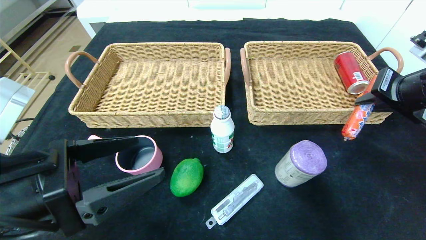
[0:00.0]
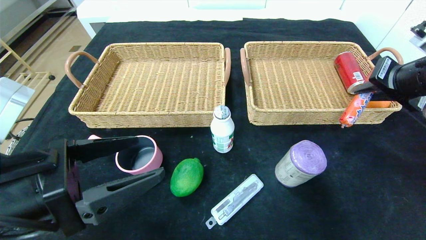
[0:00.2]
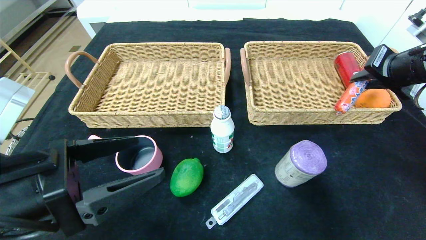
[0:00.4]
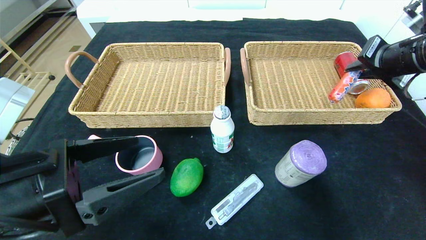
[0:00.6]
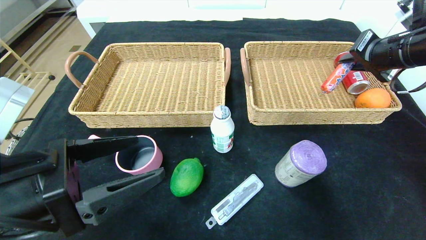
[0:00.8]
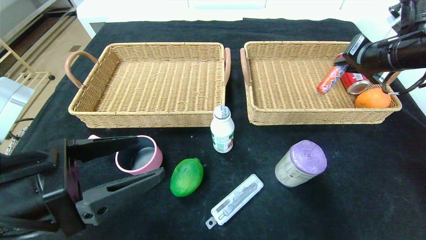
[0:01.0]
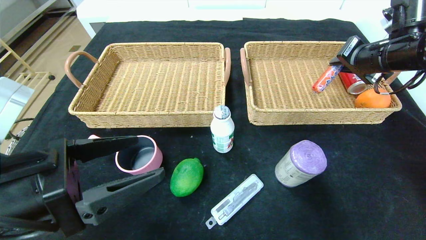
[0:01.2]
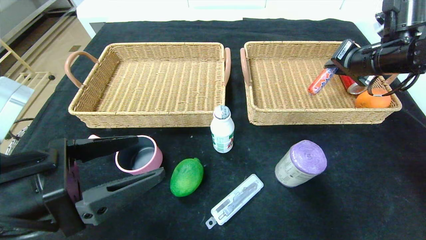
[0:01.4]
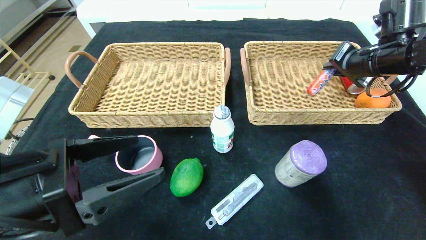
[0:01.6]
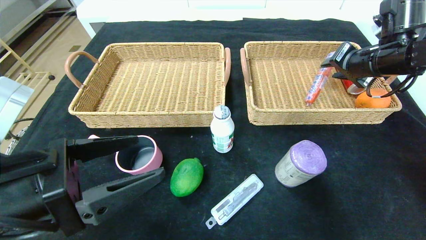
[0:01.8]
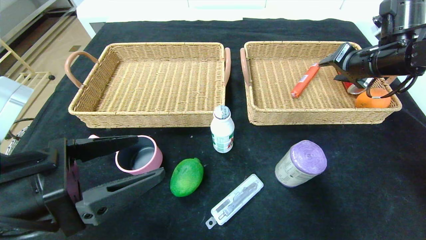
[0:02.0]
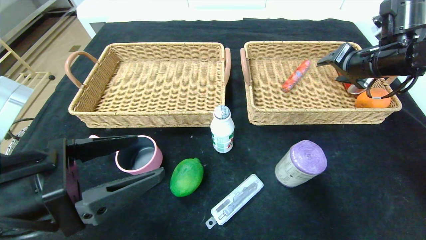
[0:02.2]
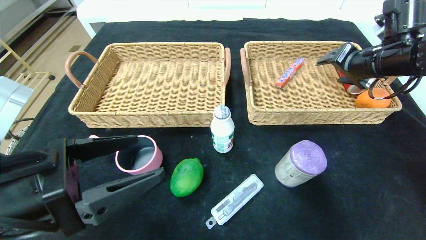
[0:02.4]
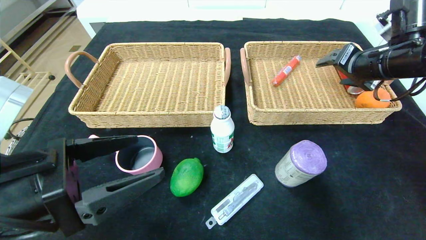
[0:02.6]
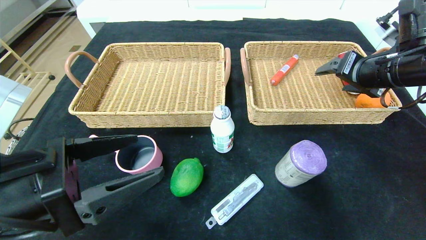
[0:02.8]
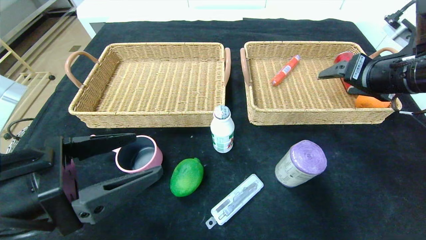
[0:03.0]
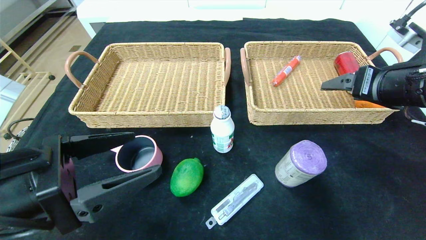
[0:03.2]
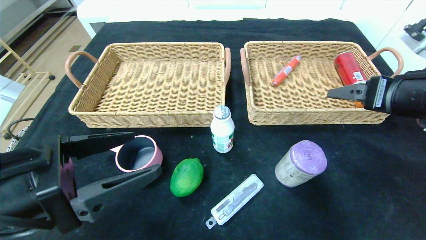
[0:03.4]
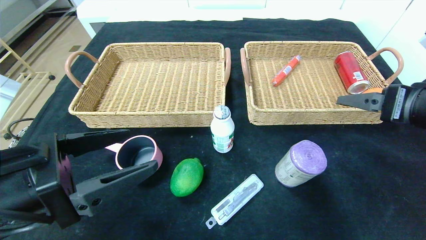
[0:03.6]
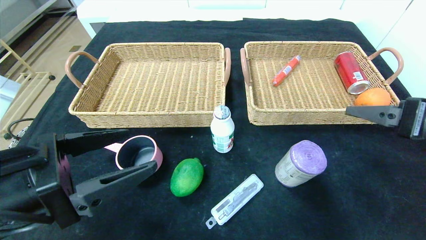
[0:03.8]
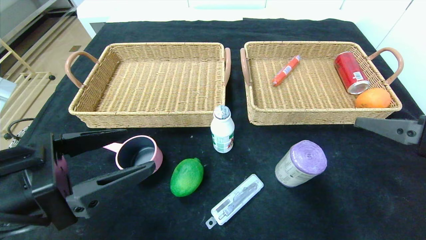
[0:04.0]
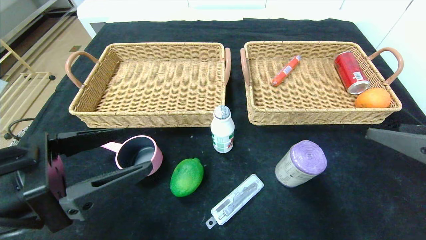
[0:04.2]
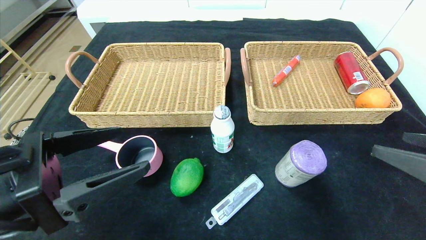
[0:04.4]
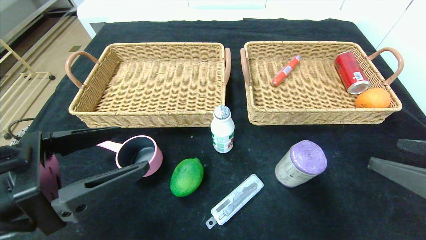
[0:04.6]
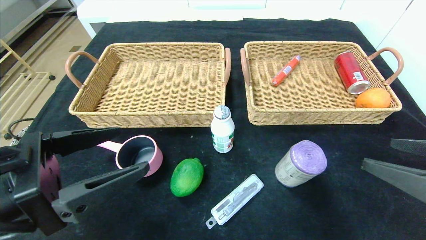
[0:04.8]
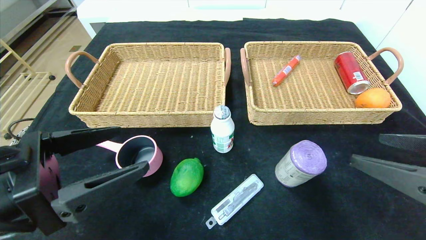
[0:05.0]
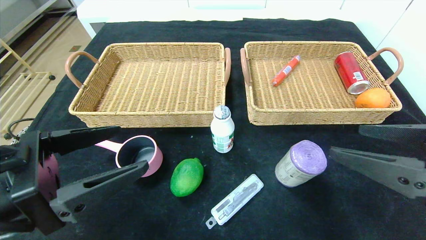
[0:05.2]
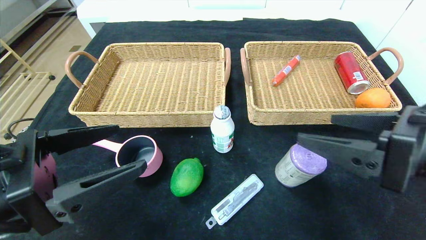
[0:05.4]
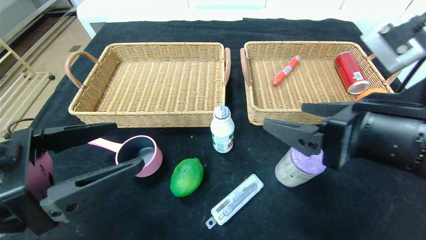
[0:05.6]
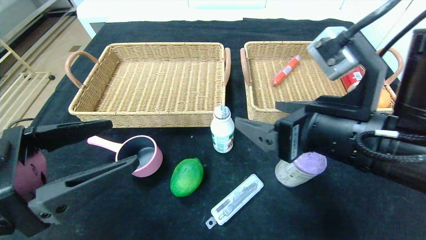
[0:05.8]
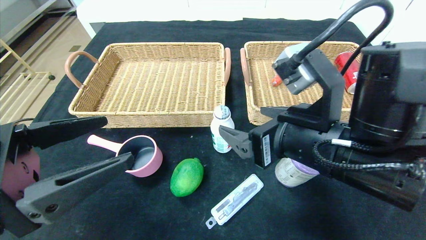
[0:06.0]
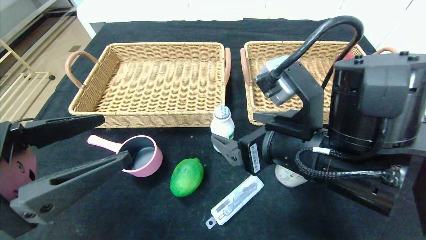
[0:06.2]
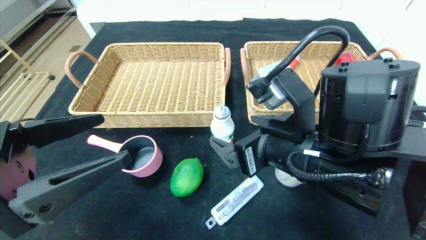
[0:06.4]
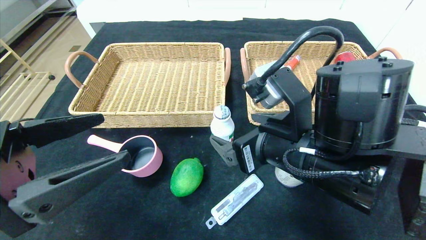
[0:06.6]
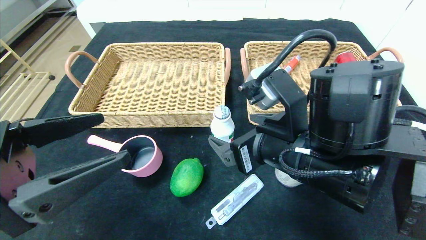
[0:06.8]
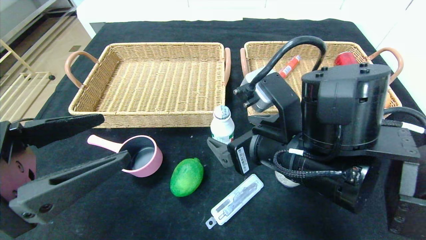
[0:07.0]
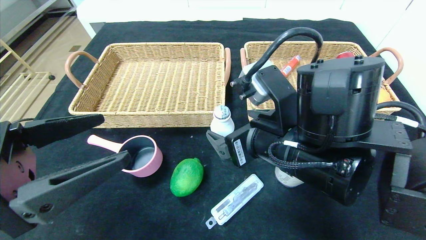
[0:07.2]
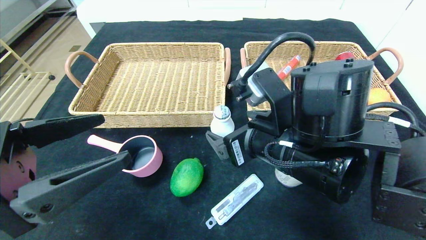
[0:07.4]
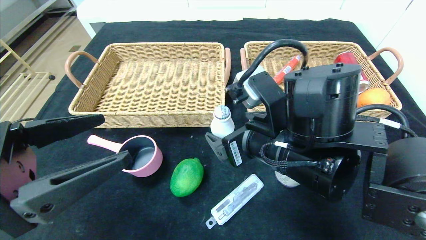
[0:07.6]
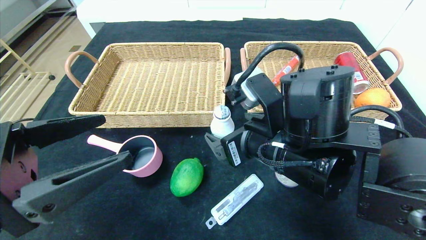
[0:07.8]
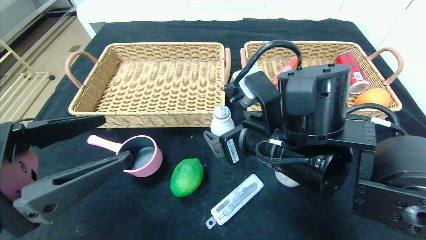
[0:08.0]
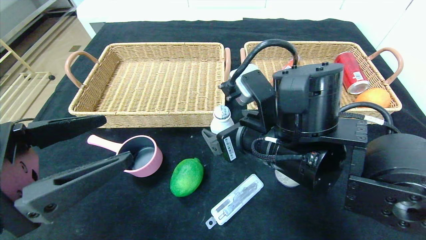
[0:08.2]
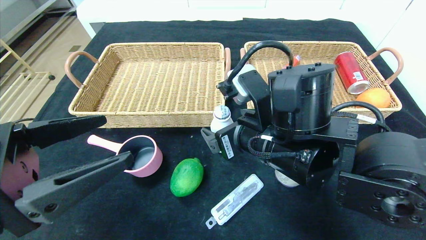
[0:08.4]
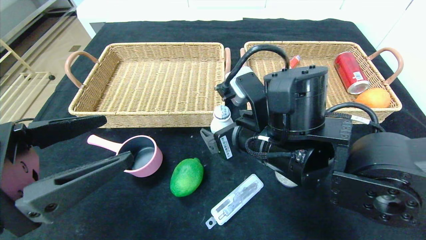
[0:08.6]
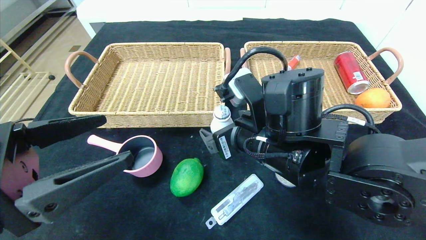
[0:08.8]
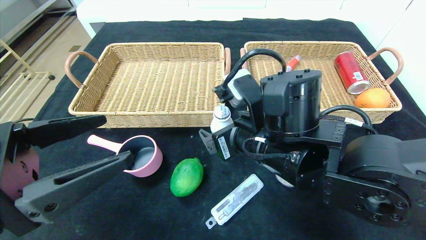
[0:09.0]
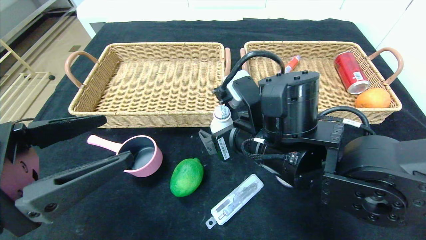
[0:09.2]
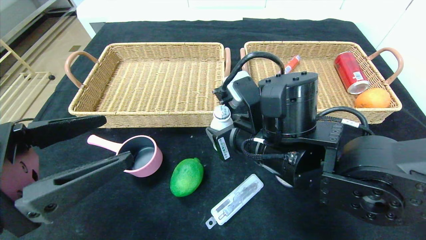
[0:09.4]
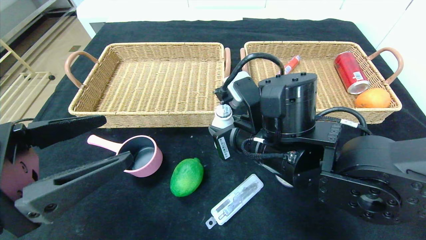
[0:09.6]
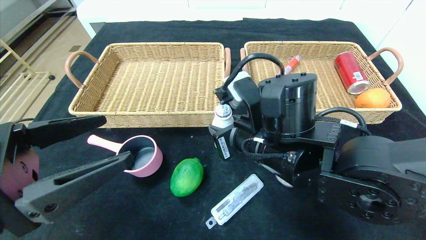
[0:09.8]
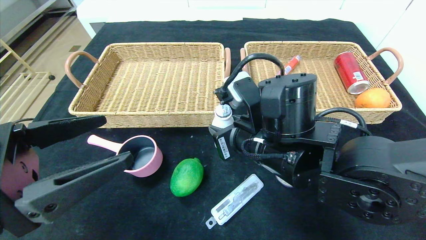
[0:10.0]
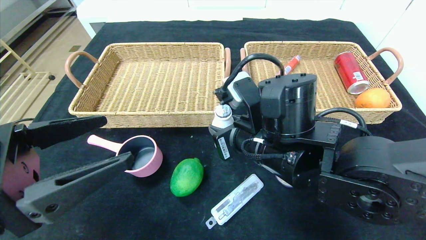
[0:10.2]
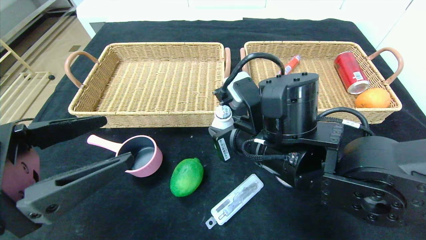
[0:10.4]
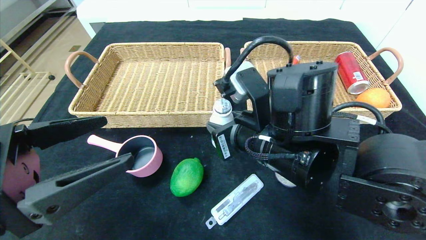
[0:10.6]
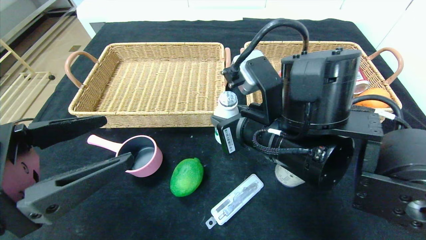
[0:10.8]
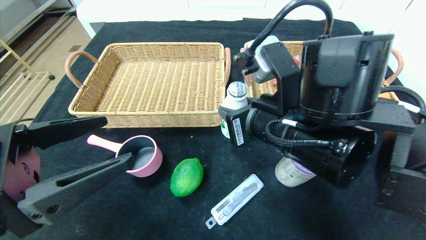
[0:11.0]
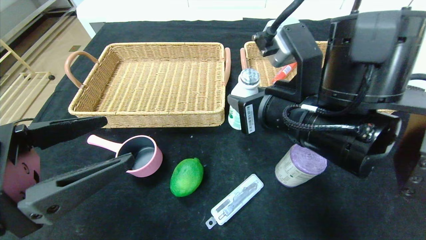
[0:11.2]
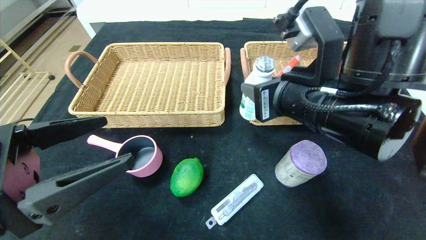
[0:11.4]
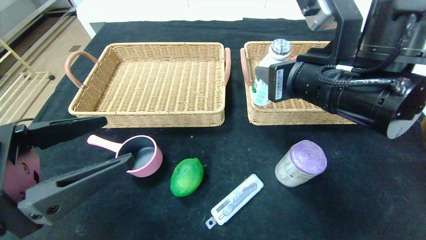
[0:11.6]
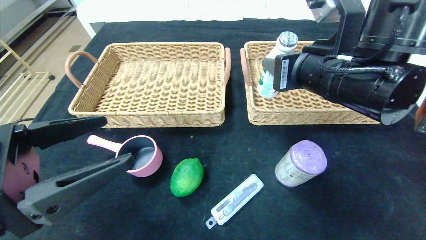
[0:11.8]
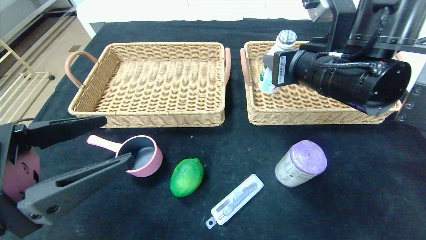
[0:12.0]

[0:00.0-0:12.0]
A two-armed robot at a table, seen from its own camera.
Step, 0:00.0 to 0:04.2: Pick up the sausage and put it in the right basket.
0:00.0 to 0:01.6: The right gripper goes some 10 cm forward.
0:01.6 to 0:03.0: The right gripper heads backward, covering roughly 10 cm, and opens.
0:03.0 to 0:04.4: The right gripper goes roughly 20 cm backward.
0:04.4 to 0:06.0: The right gripper is displaced to the left and forward by about 20 cm.
0:06.0 to 0:07.6: The right gripper changes place by approximately 5 cm.
0:07.6 to 0:09.0: The grippers move only a little.
0:09.0 to 0:10.4: The right gripper closes up.
0:10.4 to 0:12.0: The right gripper goes about 10 cm upward and to the right.

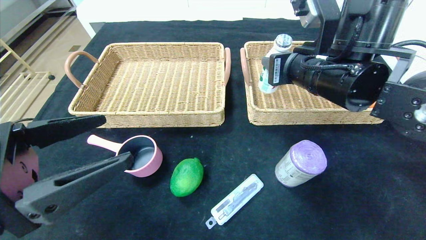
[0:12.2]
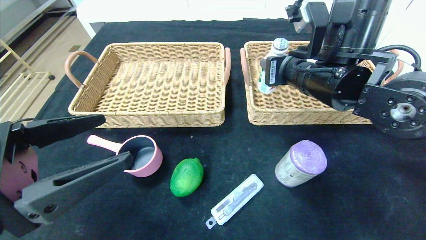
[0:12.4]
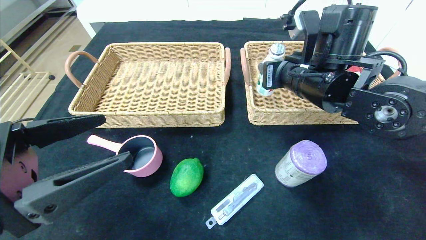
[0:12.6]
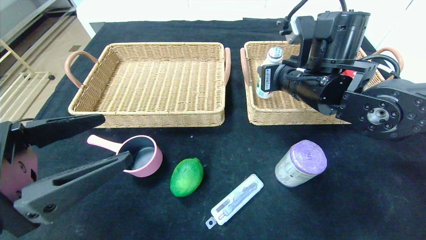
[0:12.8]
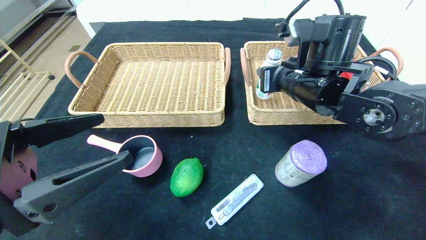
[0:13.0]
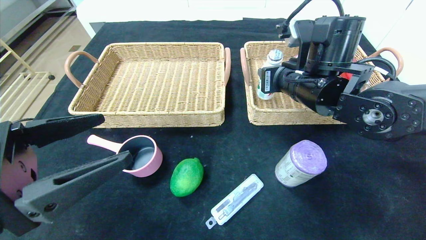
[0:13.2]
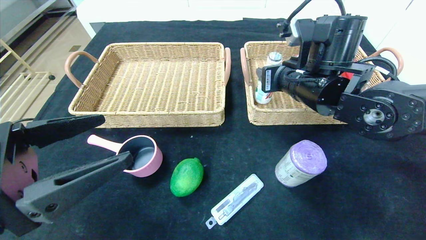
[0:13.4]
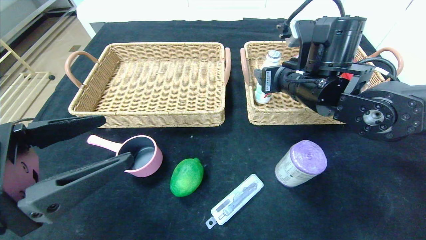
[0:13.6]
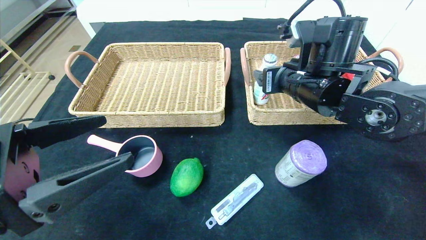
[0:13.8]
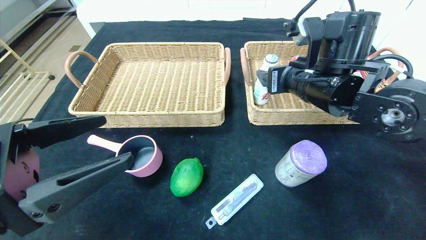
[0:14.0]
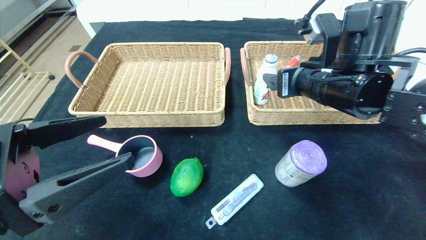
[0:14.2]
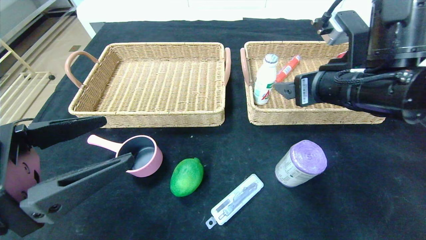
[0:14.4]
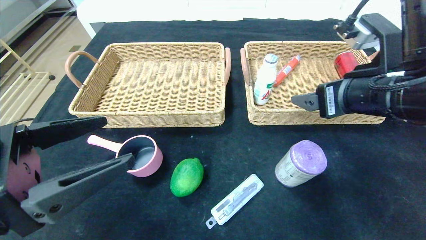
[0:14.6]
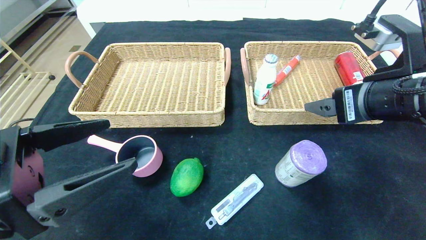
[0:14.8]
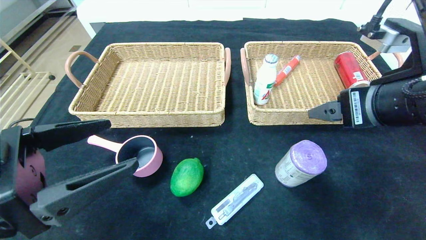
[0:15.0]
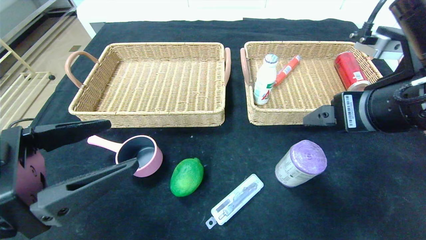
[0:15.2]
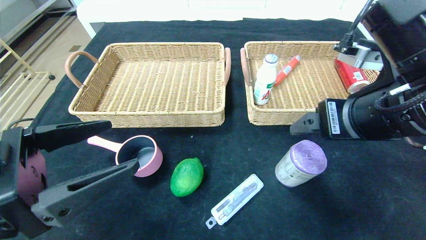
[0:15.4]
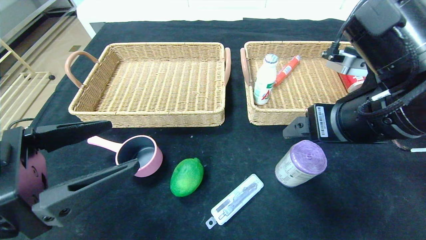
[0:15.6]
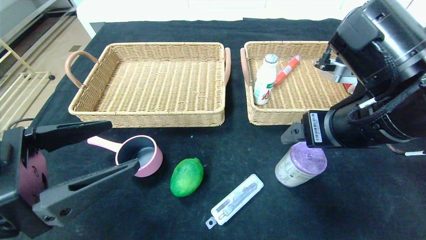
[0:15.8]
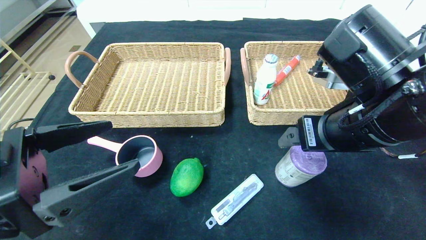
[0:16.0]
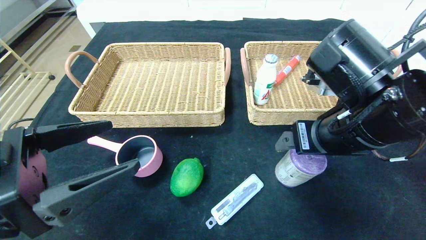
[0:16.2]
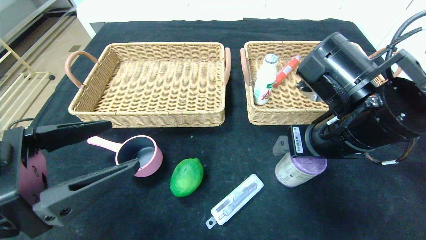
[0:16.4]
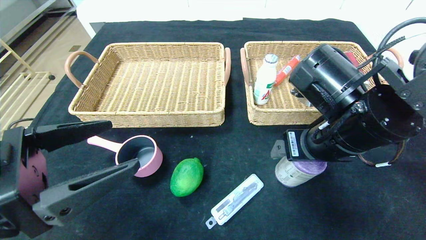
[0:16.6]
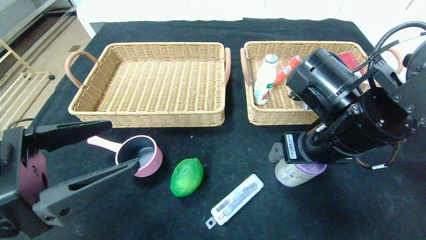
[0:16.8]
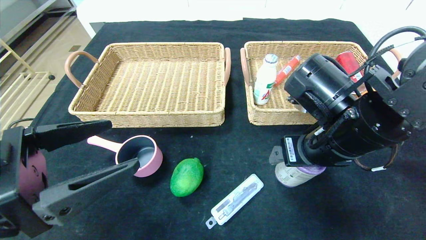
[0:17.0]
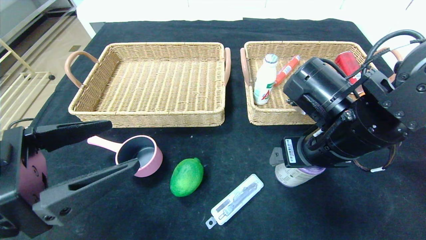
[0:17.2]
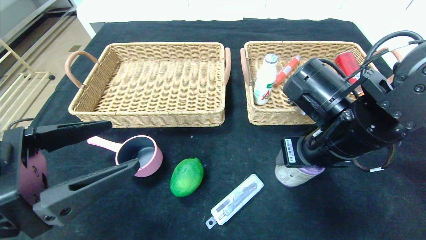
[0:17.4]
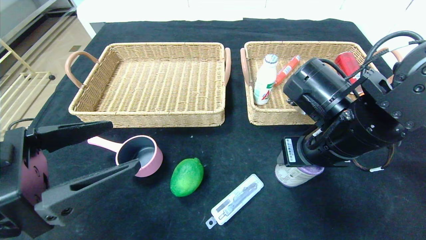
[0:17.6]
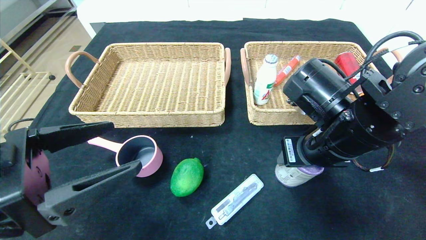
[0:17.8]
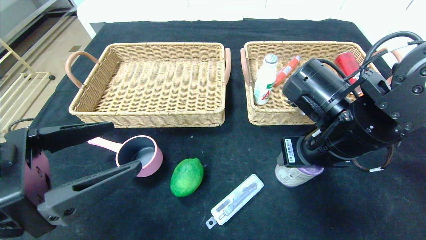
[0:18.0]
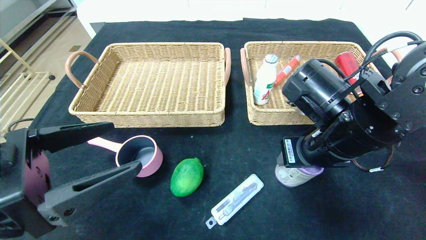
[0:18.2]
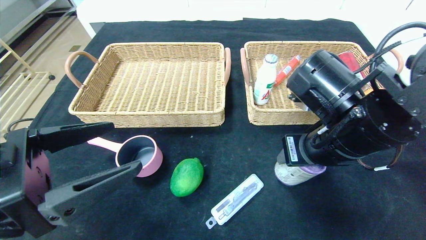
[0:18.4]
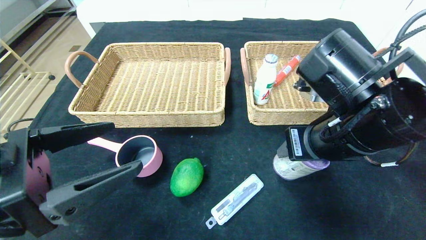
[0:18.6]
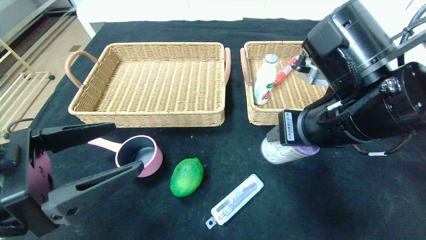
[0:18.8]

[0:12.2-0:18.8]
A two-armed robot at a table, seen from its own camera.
Step, 0:12.2 to 0:15.8: Pick up the ad milk and put it in the right basket.
0:12.2 to 0:13.8: The right gripper opens its fingers.
0:13.8 to 0:15.4: The right gripper moves backward, roughly 15 cm.
0:15.4 to 0:17.2: The right gripper moves downward, some 5 cm.
0:17.2 to 0:18.8: The right gripper closes.
